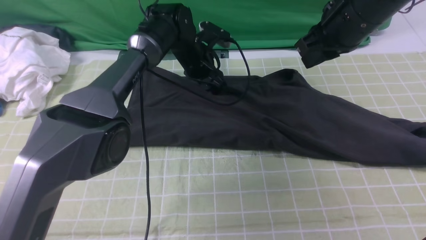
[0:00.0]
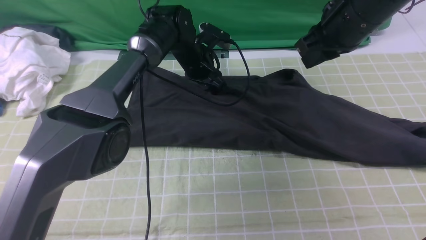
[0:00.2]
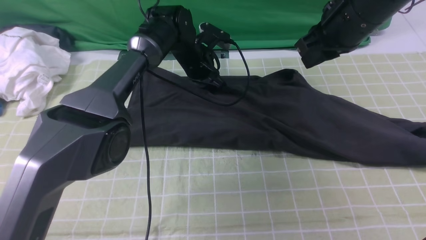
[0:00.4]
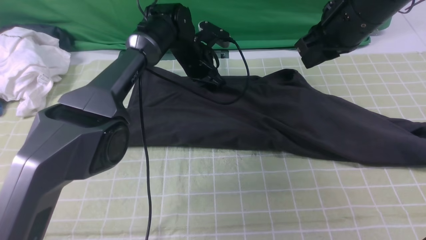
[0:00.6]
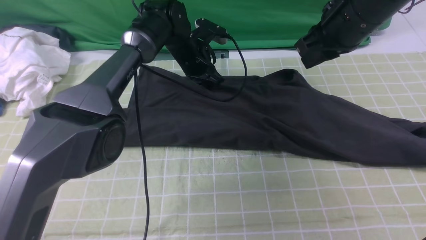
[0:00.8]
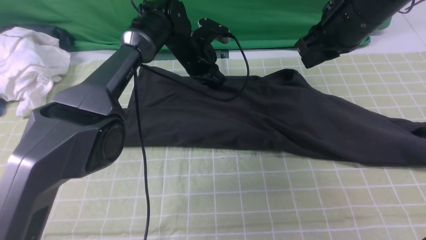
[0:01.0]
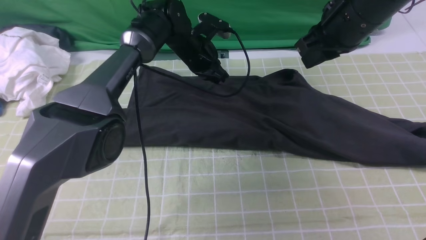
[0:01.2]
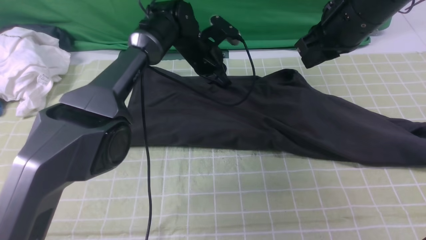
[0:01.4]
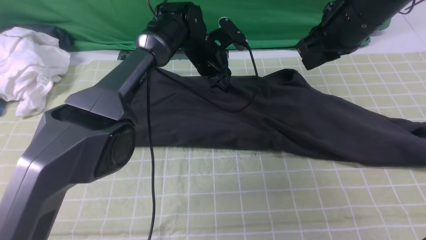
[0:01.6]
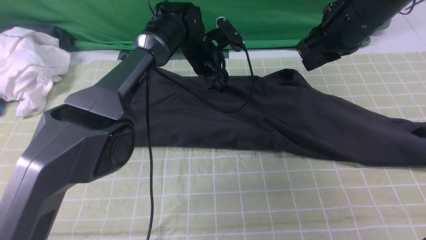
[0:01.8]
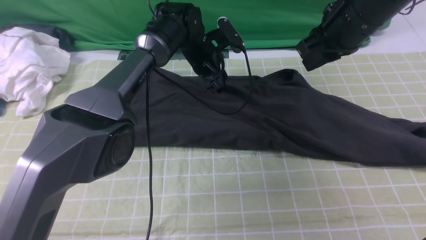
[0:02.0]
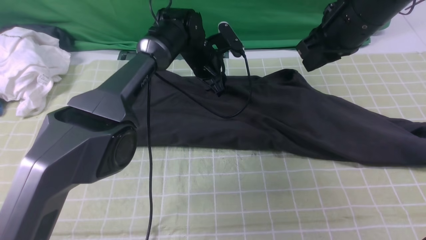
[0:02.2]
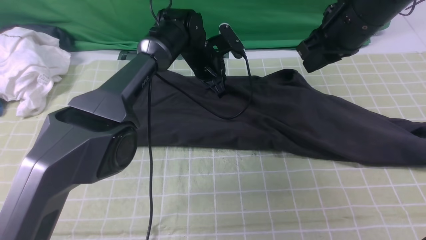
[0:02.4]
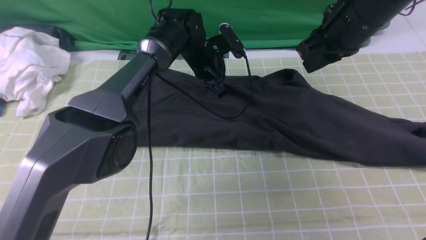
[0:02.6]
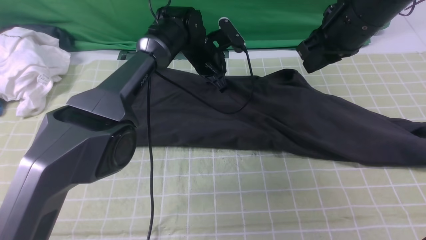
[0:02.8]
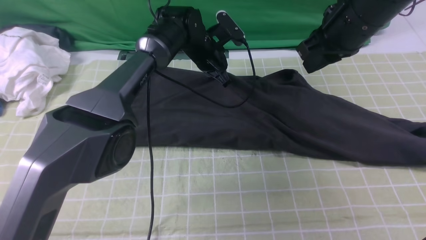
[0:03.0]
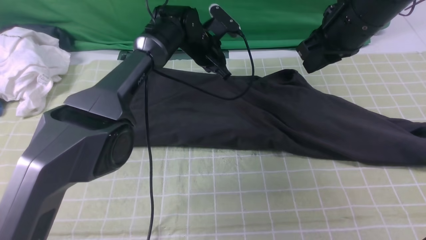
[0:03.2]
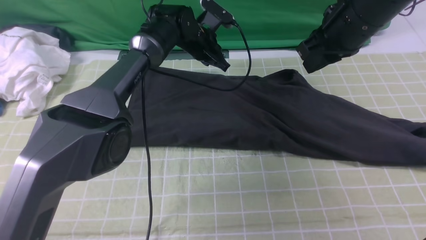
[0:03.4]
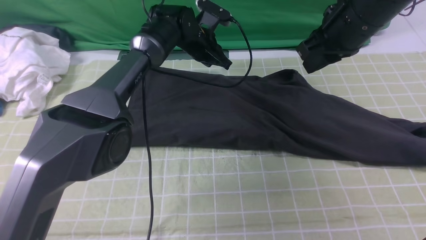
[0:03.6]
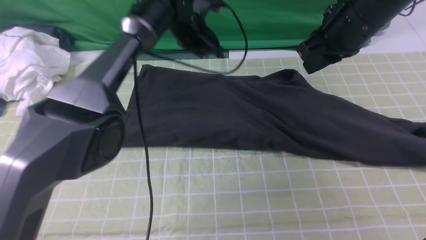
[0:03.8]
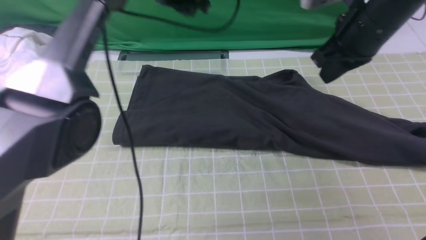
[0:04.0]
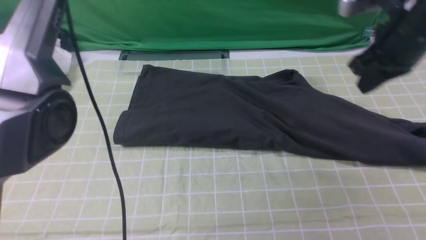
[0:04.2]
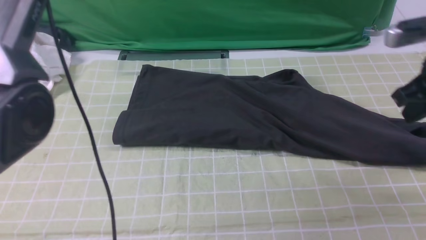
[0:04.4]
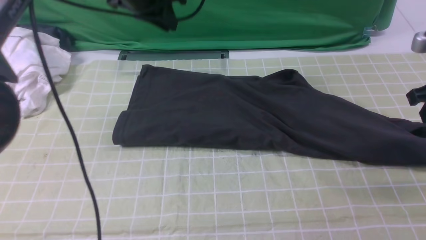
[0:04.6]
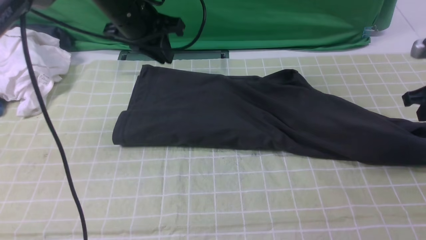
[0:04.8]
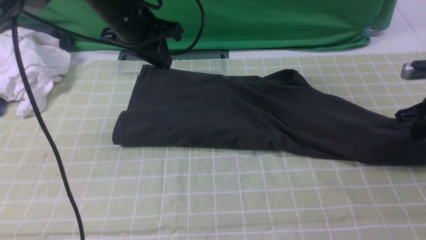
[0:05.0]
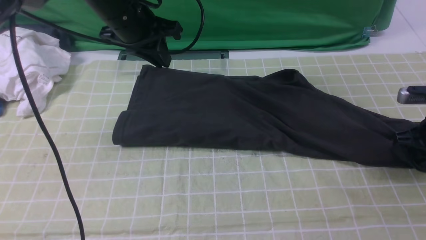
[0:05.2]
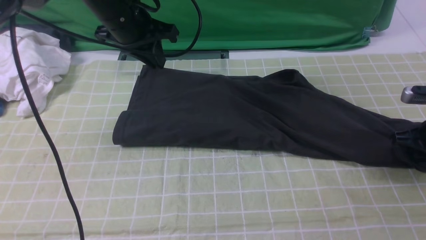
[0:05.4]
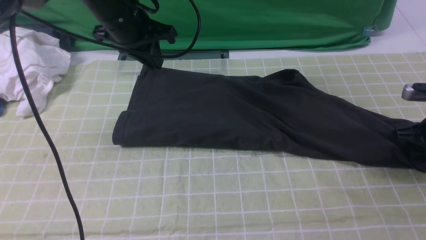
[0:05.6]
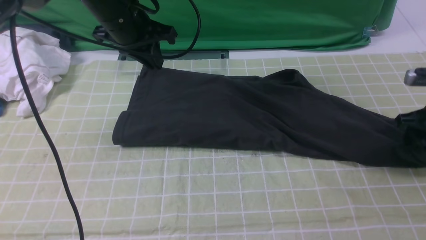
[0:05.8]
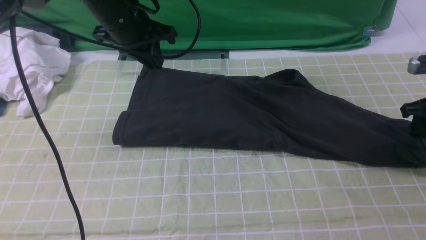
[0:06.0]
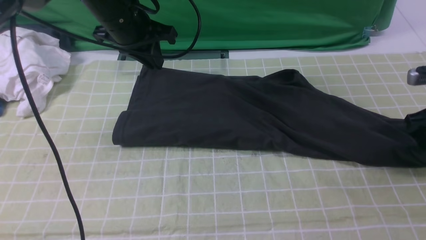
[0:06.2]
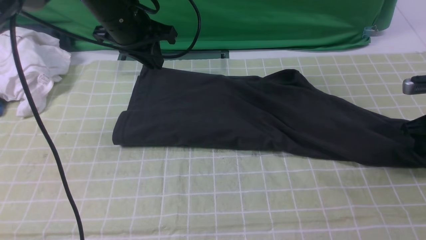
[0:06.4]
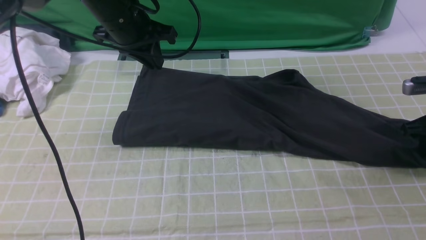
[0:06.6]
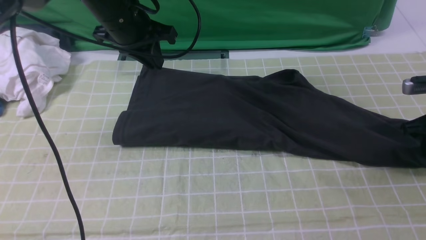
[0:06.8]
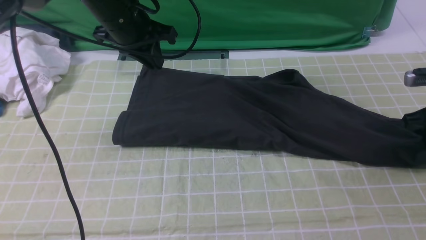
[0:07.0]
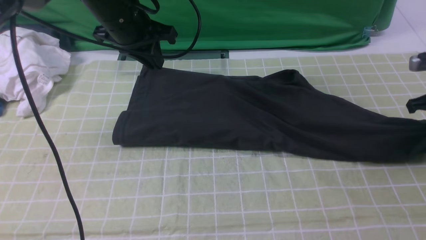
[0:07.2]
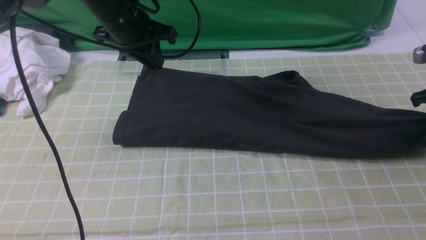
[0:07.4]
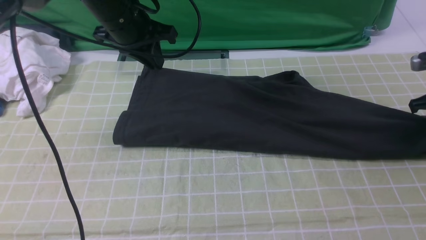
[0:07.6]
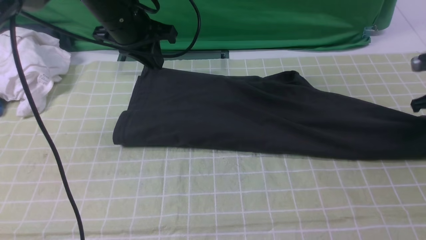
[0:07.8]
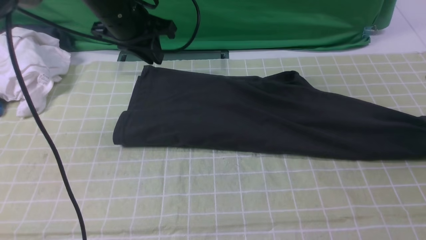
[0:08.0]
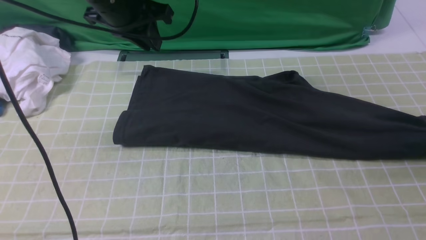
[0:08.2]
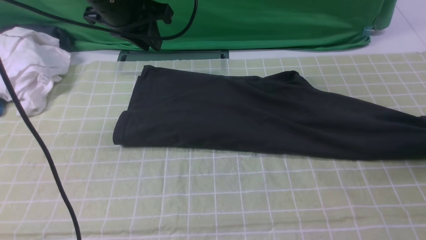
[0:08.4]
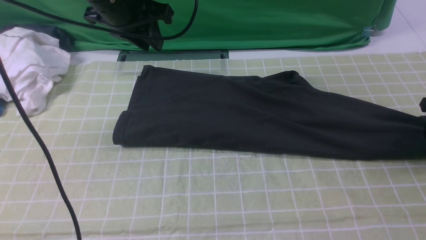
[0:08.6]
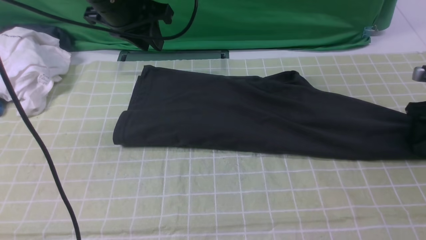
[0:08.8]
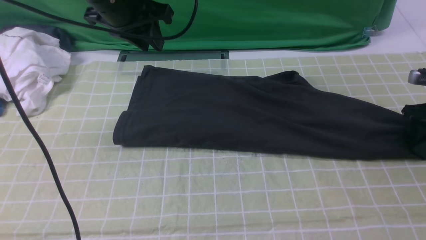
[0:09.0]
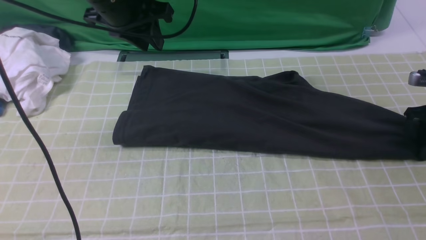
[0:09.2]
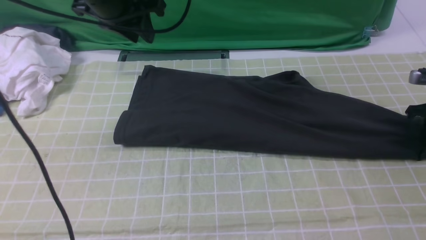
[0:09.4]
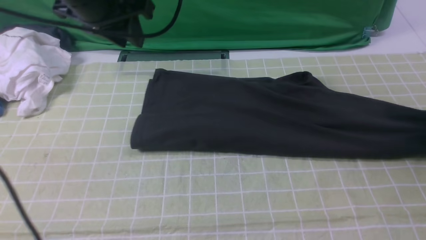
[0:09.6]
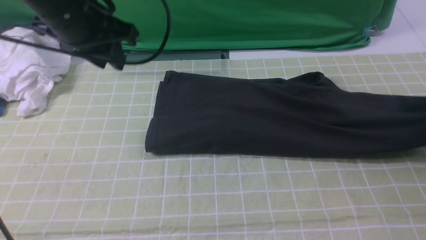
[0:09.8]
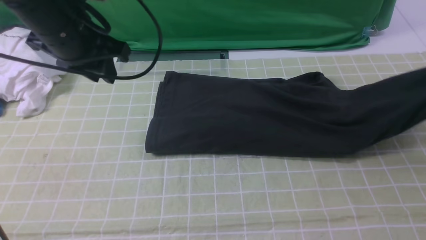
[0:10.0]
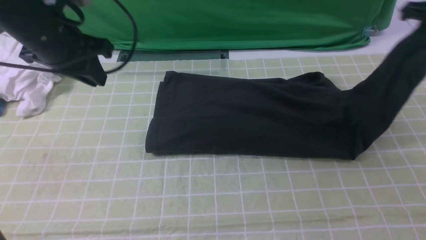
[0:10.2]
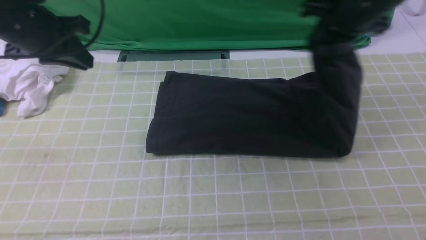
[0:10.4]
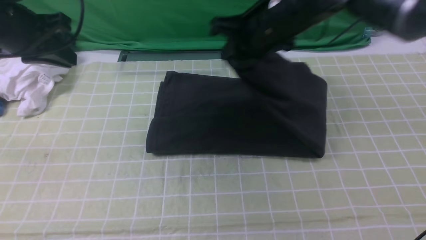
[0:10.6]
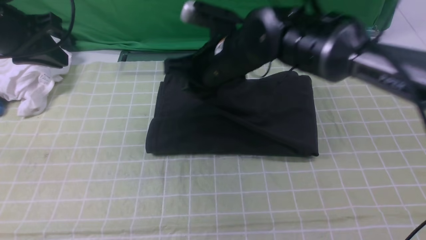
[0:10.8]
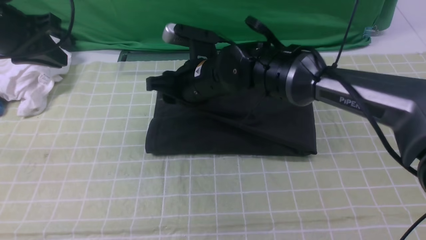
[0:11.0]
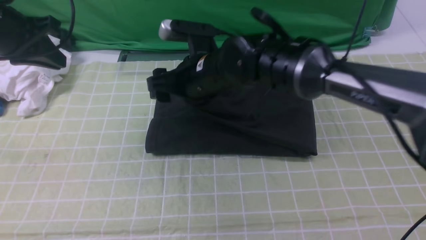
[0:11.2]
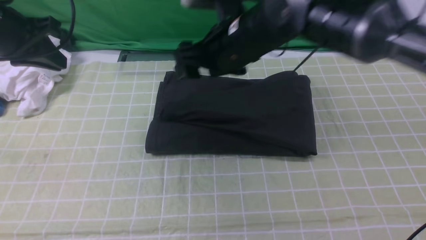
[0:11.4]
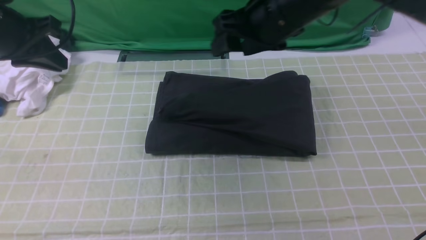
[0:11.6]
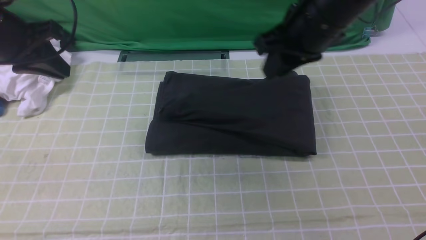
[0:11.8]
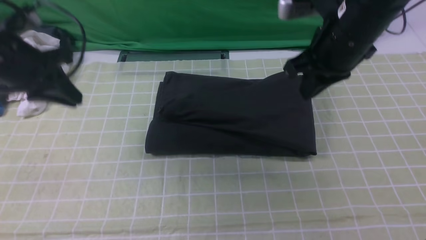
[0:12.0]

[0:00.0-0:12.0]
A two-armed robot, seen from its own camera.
Step, 0:00.0 to 0:09.0: use the right arm to clamp the right edge of the fabric.
Step, 0:09.4 to 0:11.4: use the right arm to drag the right edge of the fabric to the left and folds it over the left edge.
0:00.0 to 0:01.6: The left gripper closes, then reopens.
0:01.6 to 0:03.0: The left gripper closes.
0:03.0 to 0:04.4: The right gripper is displaced to the right by about 15 cm; the left gripper shifts roughly 20 cm upward and to the left.
0:04.4 to 0:06.0: The right gripper travels downward and to the right by roughly 15 cm, and opens up; the left gripper moves backward, some 5 cm.
0:06.0 to 0:07.6: The right gripper closes, then reopens.
0:09.0 to 0:10.4: The left gripper is displaced to the left and backward by some 15 cm, and closes its fingers. Meanwhile the right gripper shifts some 30 cm to the left and upward, and closes its fingers.
0:10.4 to 0:12.0: The left gripper shifts some 5 cm downward. The right gripper travels backward by roughly 5 cm, moves some 20 cm to the left and comes back, and opens, then closes again.

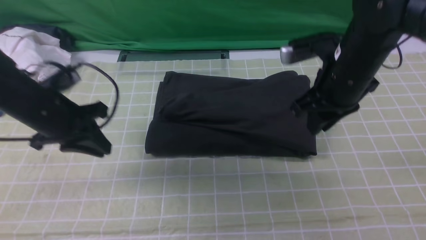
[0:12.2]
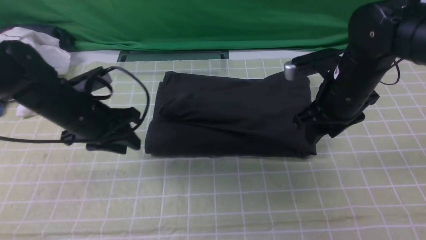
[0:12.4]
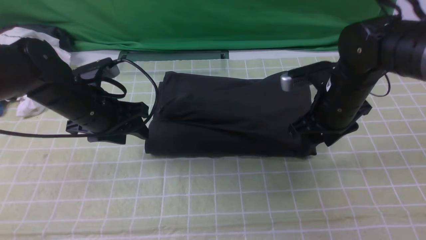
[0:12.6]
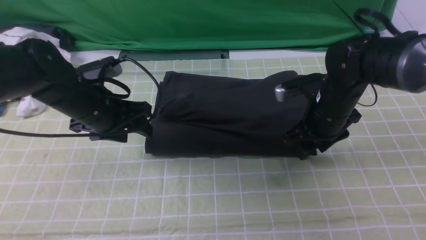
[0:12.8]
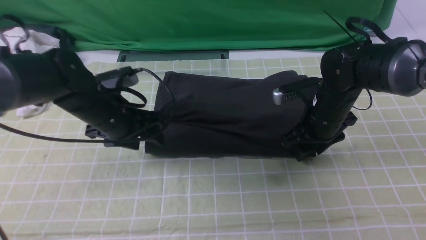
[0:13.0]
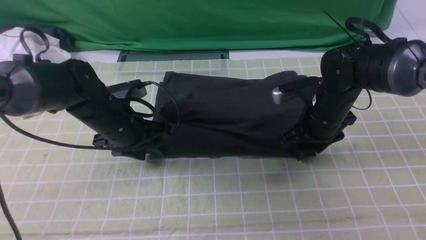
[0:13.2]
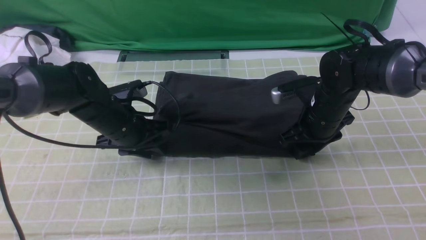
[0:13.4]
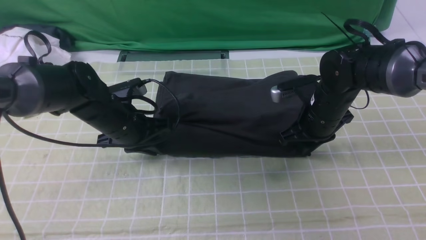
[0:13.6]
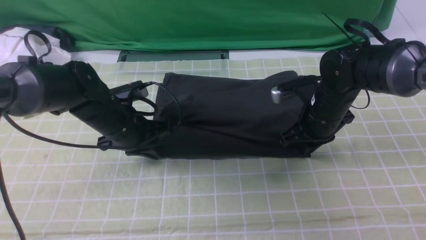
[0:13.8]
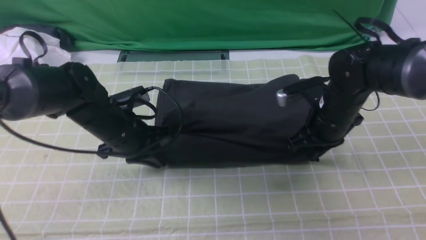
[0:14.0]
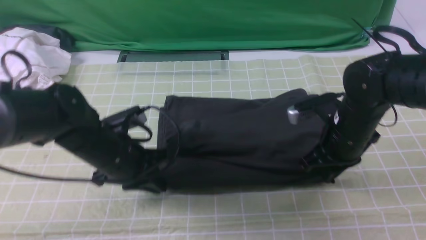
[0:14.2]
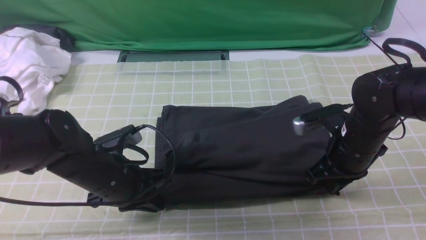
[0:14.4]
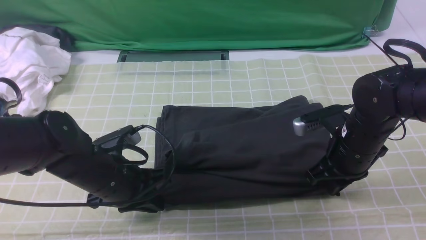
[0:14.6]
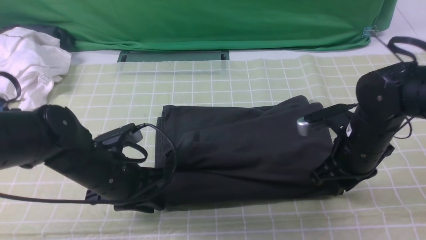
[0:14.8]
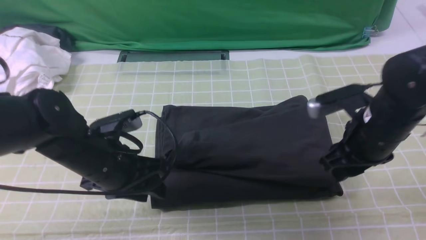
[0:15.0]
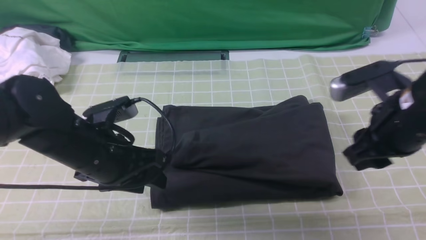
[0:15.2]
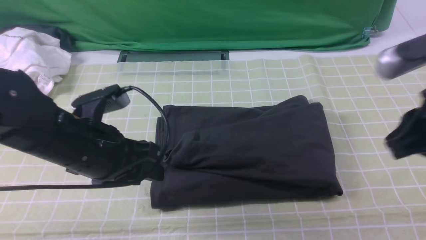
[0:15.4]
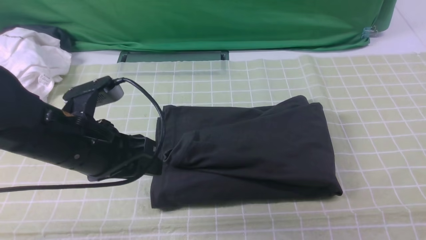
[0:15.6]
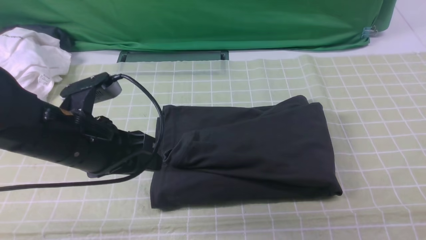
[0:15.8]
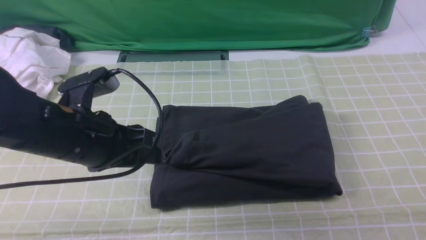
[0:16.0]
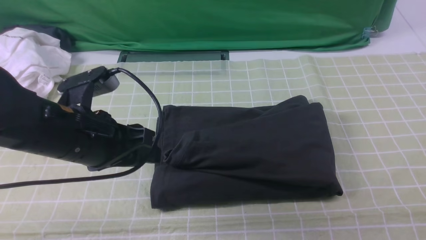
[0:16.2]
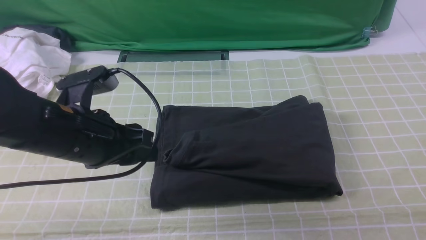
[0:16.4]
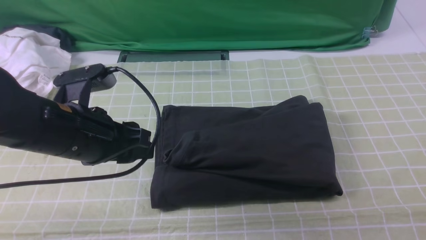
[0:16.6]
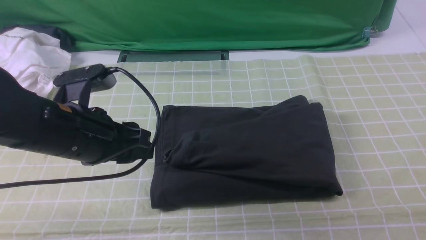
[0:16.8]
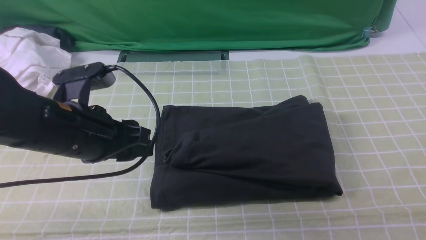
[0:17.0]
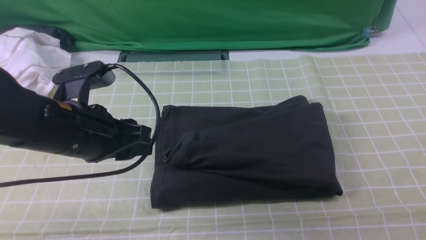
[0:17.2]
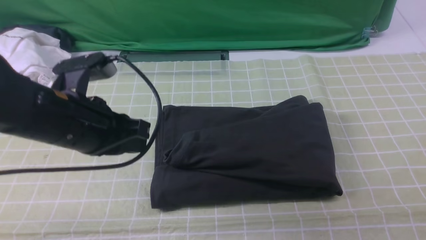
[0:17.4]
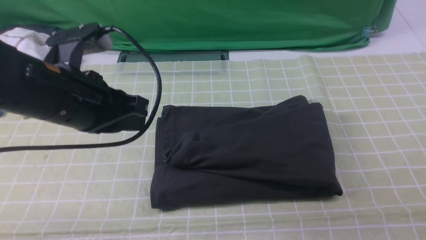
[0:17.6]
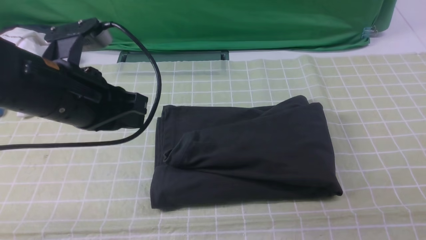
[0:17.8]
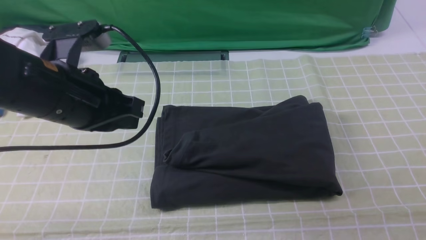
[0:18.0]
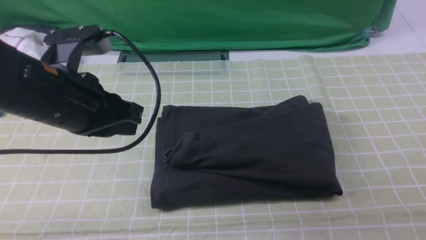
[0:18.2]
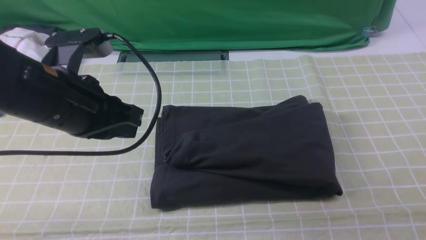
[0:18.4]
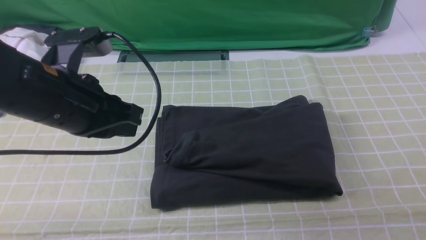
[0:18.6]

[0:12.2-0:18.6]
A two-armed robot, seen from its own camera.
0:12.2 to 0:13.8: The right gripper heads downward, covering some 10 cm. Meanwhile the left gripper heads to the right and downward, covering some 10 cm, and opens and closes again.
0:13.8 to 0:15.4: The right gripper moves upward, backward and to the right, roughly 25 cm, and opens, then closes again. The left gripper shifts approximately 15 cm backward and upward, and opens its fingers.
0:15.4 to 0:17.0: The right gripper moves backward, to the right and downward, roughly 15 cm.
0:17.0 to 0:18.6: The left gripper closes; the right gripper is displaced downward by about 10 cm.
